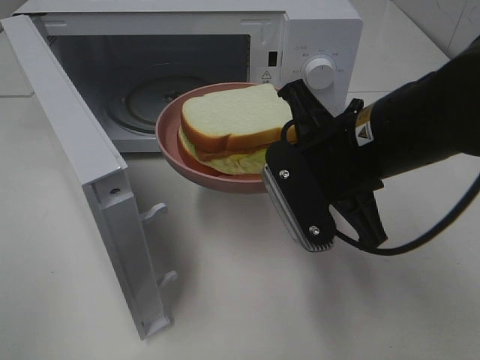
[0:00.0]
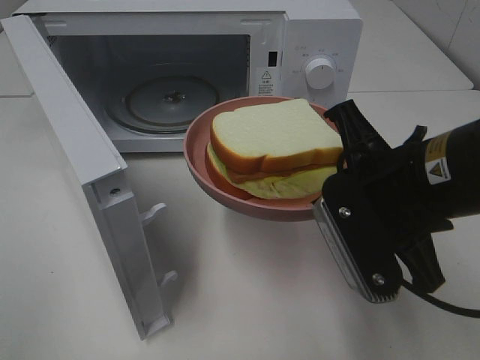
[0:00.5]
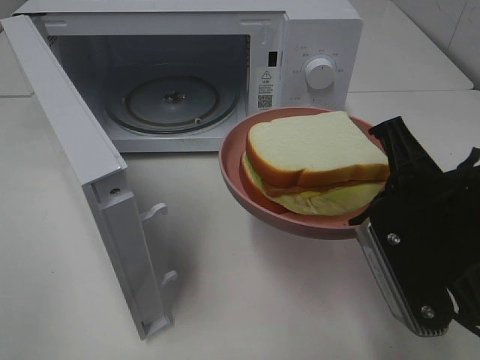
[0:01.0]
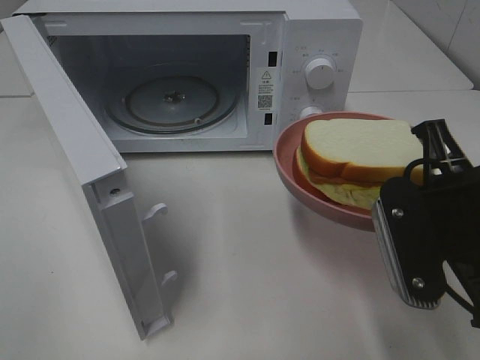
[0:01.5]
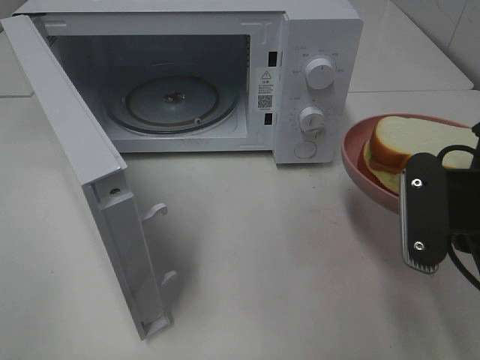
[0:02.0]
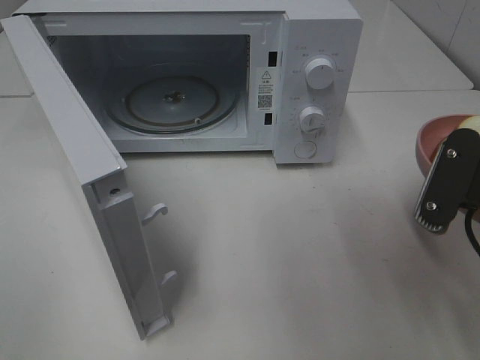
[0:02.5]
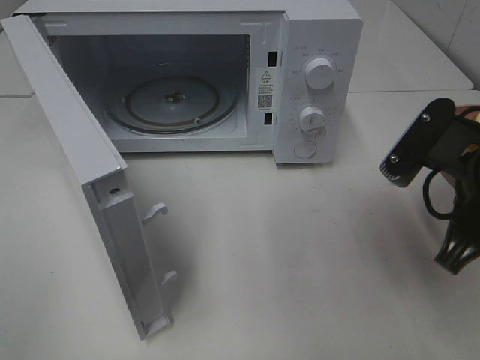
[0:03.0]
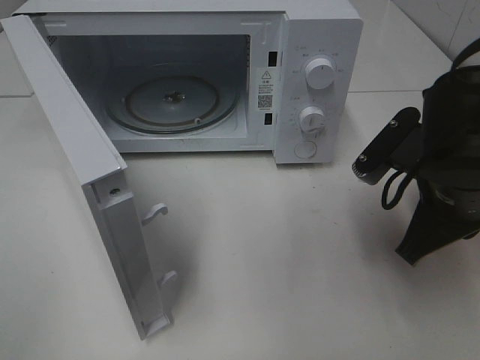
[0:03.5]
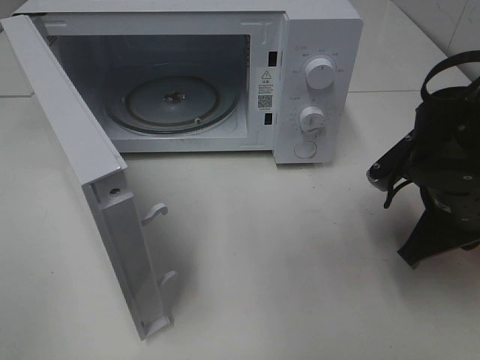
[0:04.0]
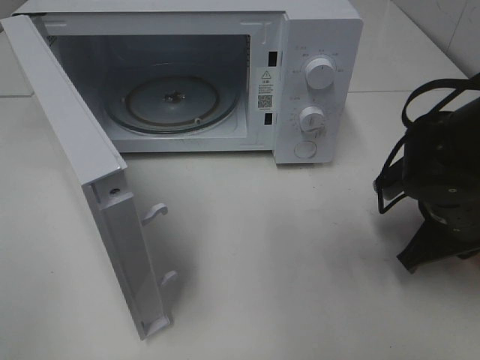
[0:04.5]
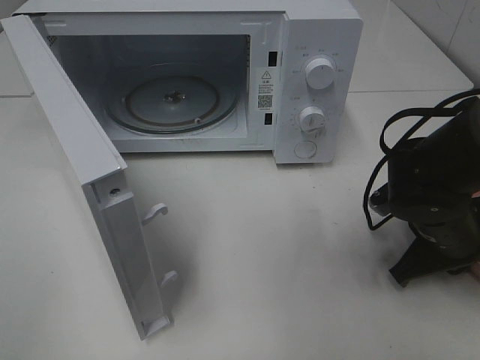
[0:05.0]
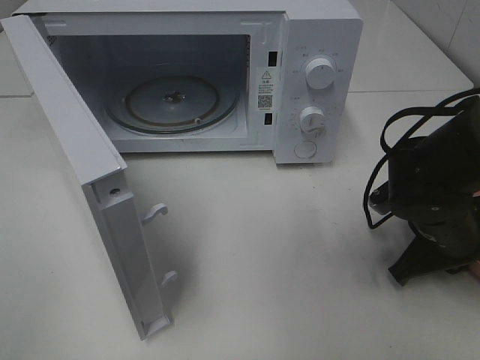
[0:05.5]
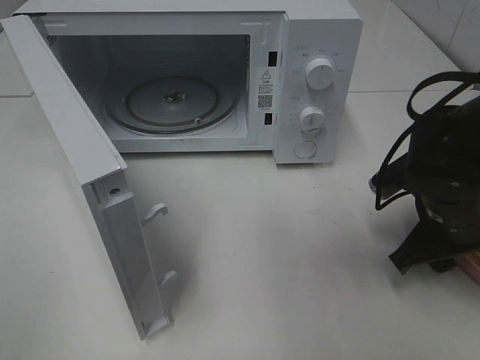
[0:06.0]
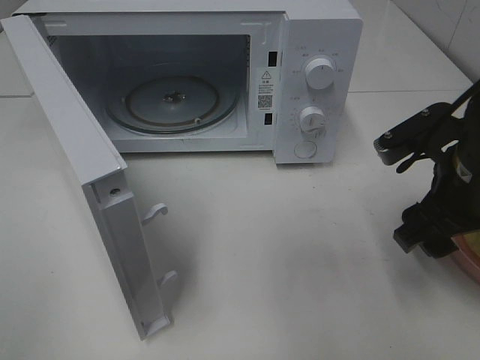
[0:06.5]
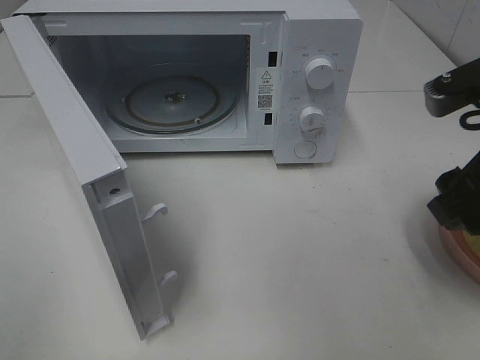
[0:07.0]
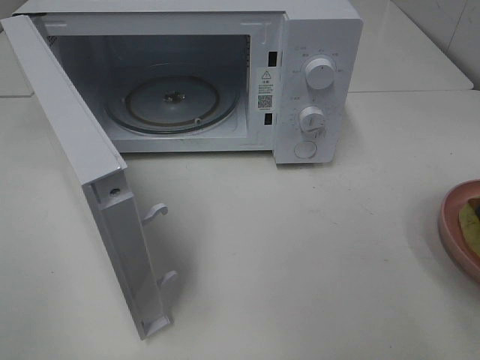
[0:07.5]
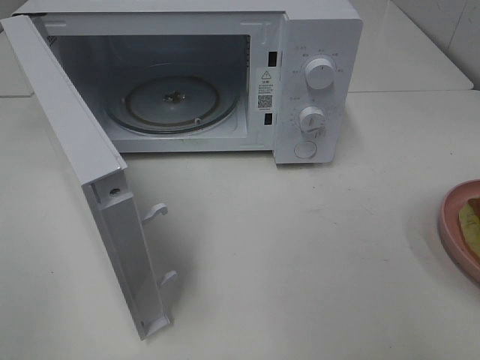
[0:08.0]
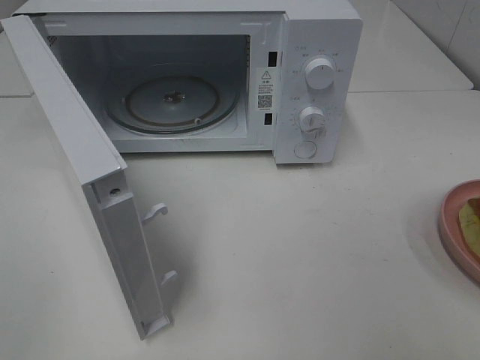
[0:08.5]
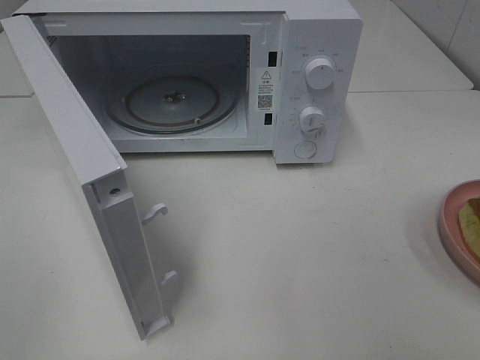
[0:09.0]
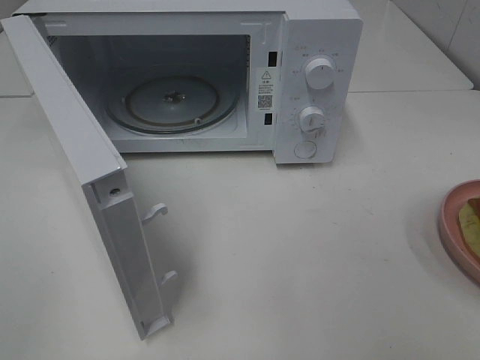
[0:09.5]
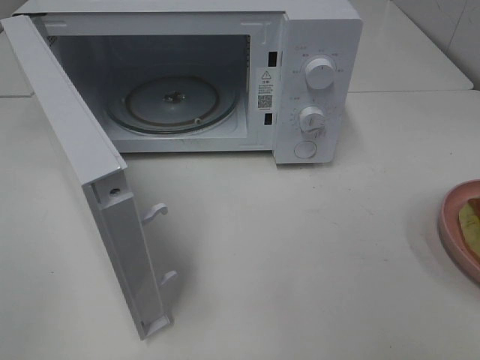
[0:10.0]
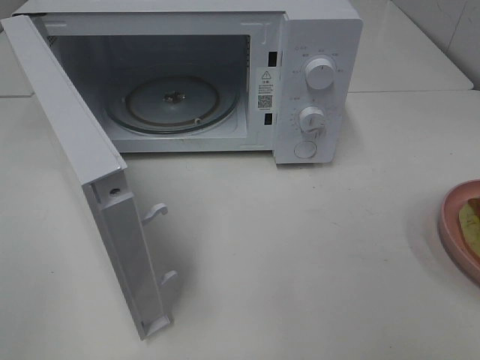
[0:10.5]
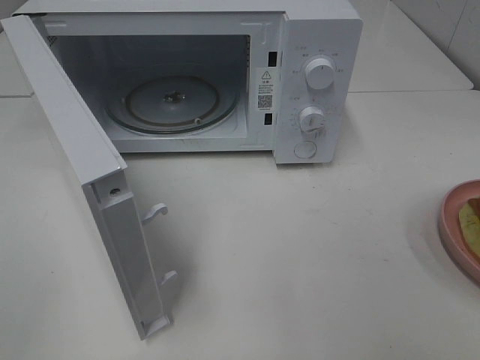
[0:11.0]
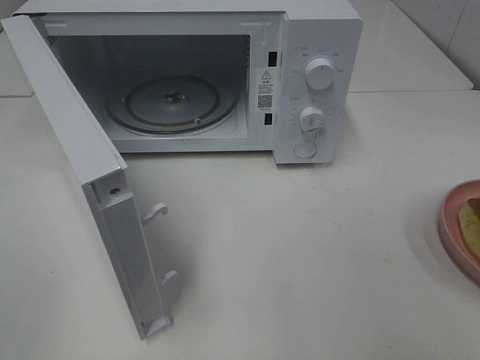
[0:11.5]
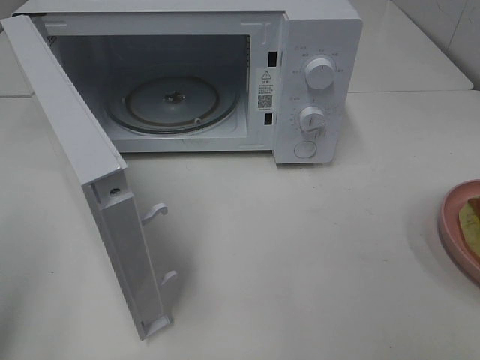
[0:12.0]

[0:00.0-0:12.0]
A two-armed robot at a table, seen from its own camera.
Task of the whole recording: Heat Sandwich.
Step, 0:00.0 to 0:06.5: Right hand: place the plate on the table.
0:00.0 to 0:02.0: The right gripper goes approximately 10 cm to the right and backward.
0:02.0 to 0:04.0: The right gripper moves forward and downward, roughly 10 cm.
0:04.0 to 0:06.0: The right gripper opens.
0:06.0 to 0:08.0: The right gripper shifts some 25 cm upward and backward.

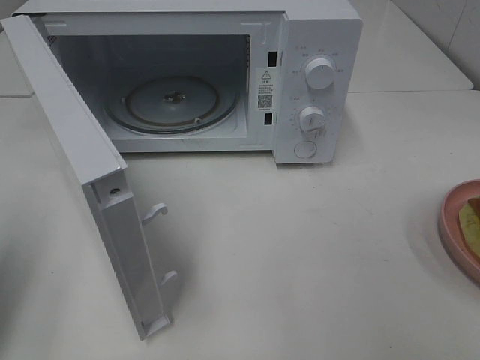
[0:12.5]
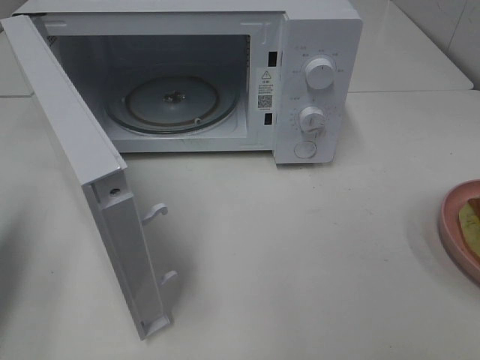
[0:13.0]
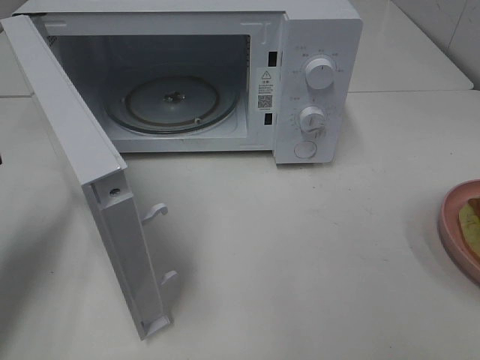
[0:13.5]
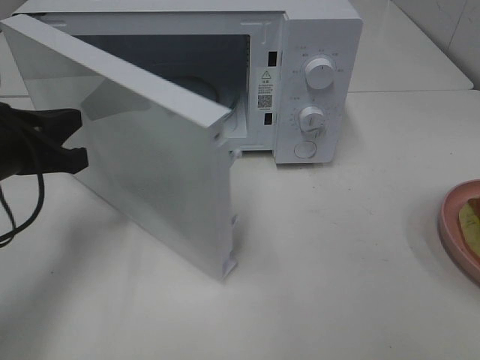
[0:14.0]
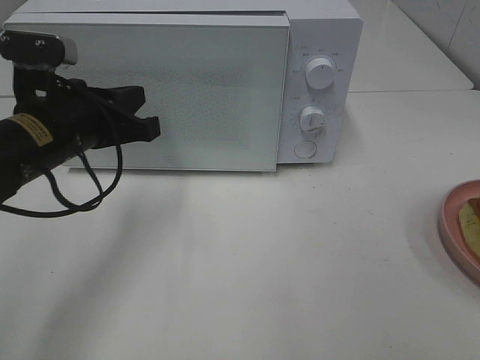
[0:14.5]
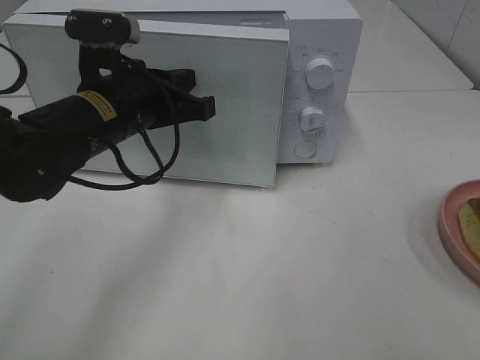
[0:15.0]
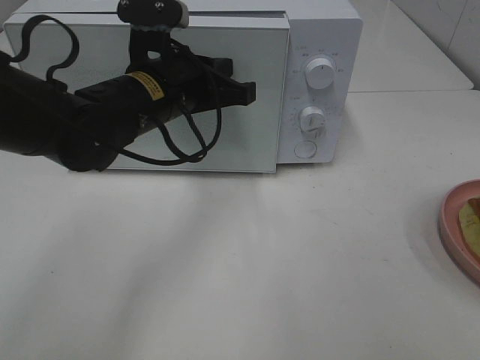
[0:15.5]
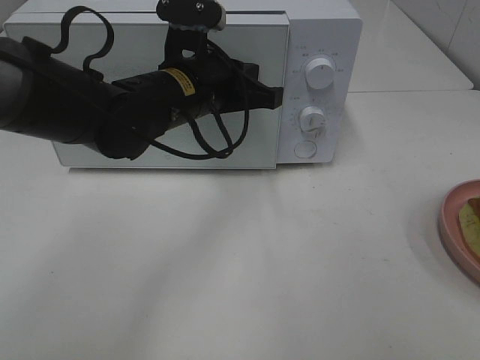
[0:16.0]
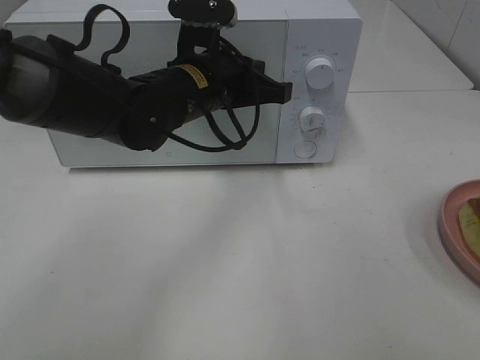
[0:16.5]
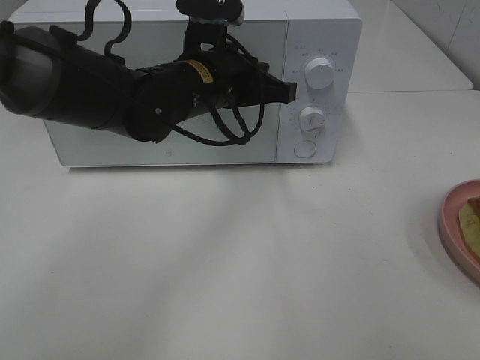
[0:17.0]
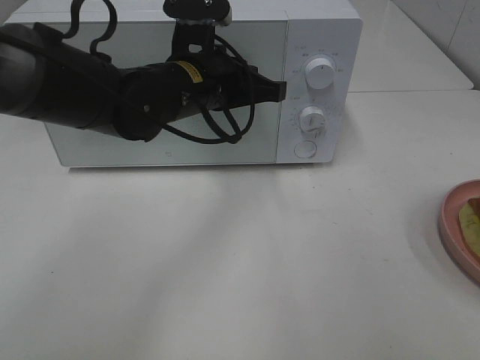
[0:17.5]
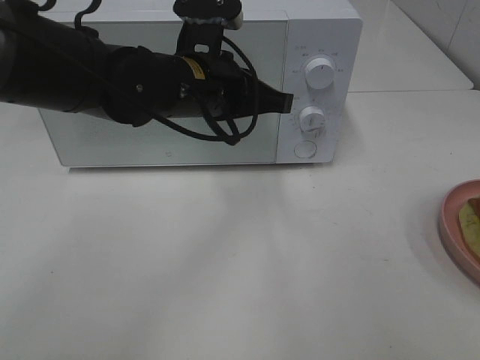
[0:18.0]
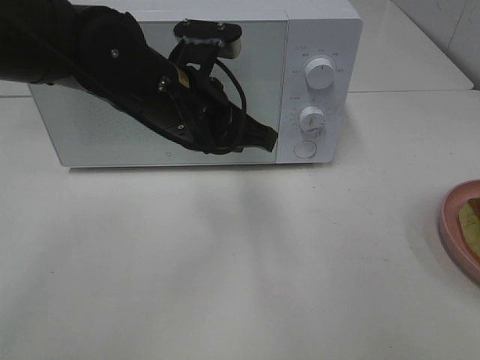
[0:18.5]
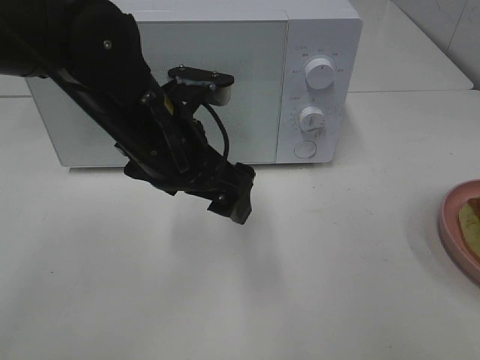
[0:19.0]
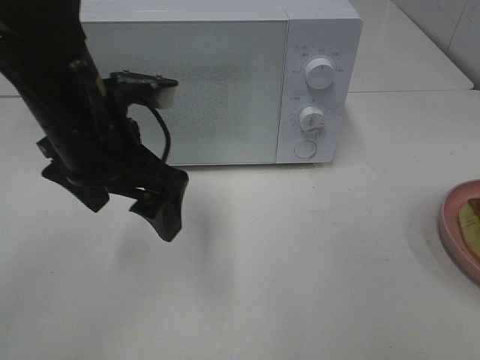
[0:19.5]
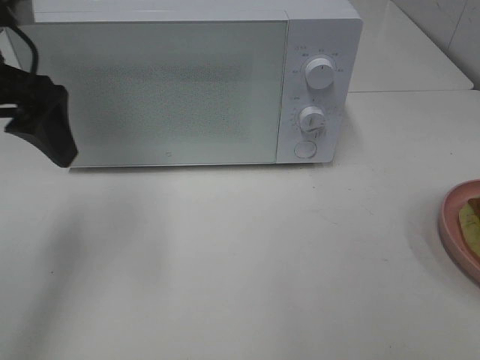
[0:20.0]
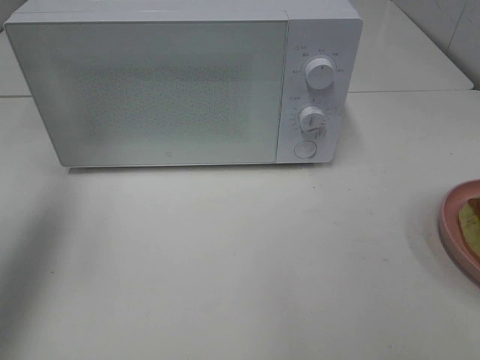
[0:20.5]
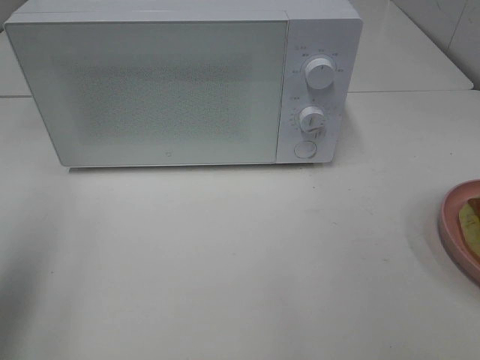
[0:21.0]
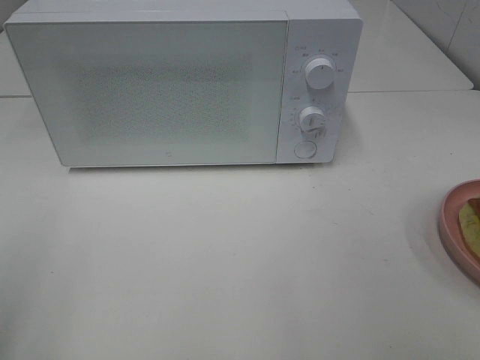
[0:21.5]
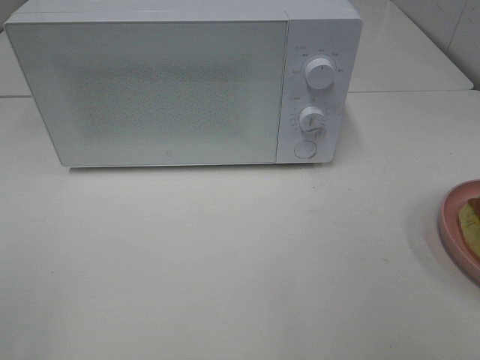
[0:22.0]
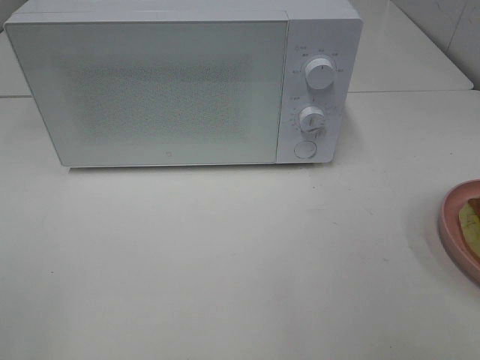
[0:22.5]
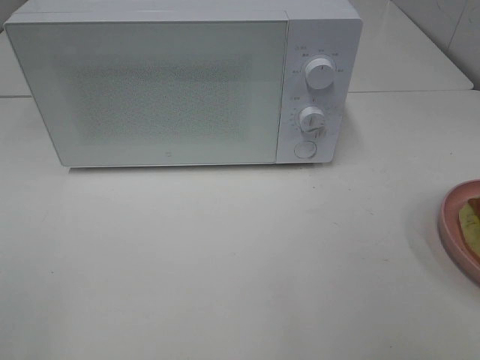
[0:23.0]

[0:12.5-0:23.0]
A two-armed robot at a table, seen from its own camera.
Task of the whole recording: Heat Sandwich.
Step, 0:12.5 to 0:18.0: Left hand: close the microwave door.
0:12.5 to 0:14.5: The left gripper is displaced to the right, forward and downward by about 25 cm.
0:14.5 to 0:16.5: The left gripper heads to the right and forward, covering about 15 cm.
0:16.5 to 0:19.0: The left gripper travels backward by roughly 10 cm, and opens its fingers.
0:19.0 to 0:21.0: The left gripper moves to the left, backward and upward, approximately 30 cm.
0:21.0 to 0:23.0: The left gripper travels backward by approximately 15 cm.

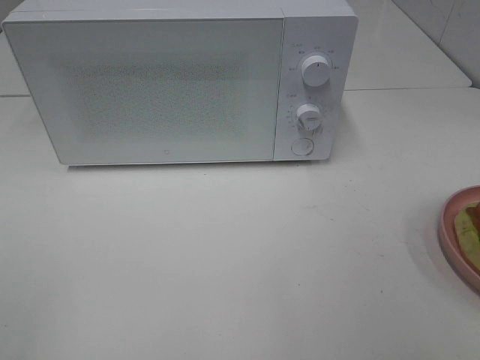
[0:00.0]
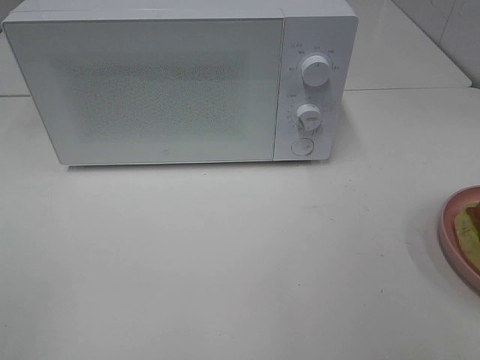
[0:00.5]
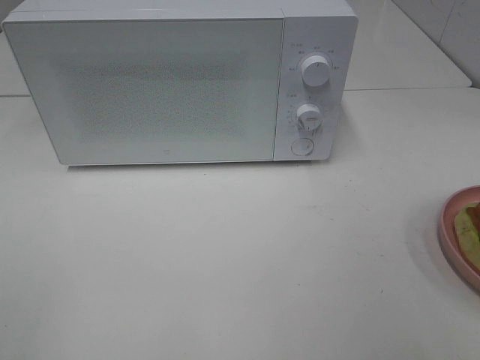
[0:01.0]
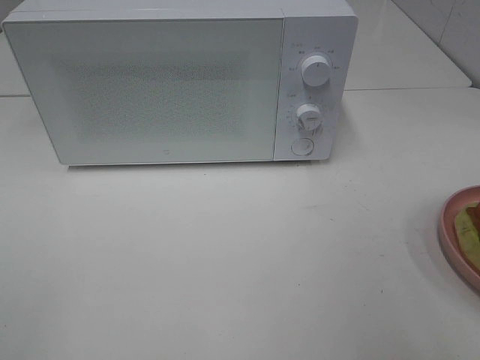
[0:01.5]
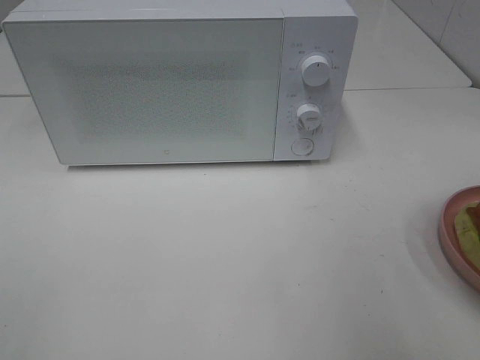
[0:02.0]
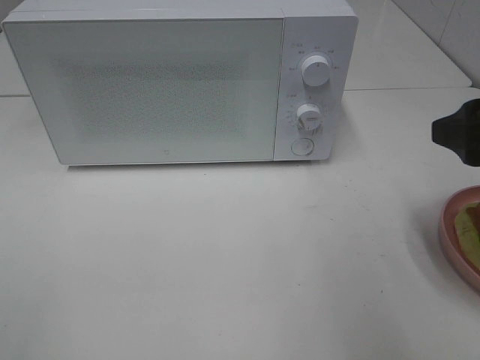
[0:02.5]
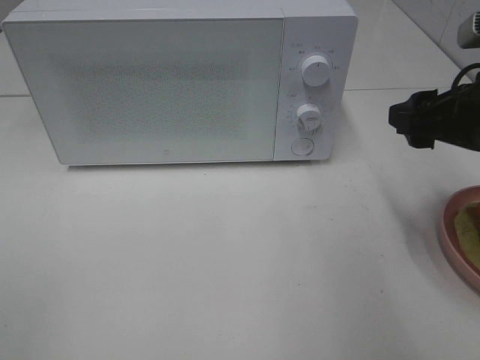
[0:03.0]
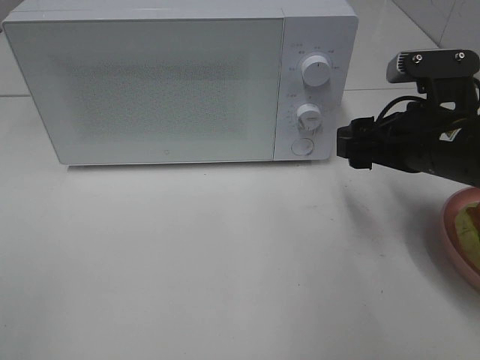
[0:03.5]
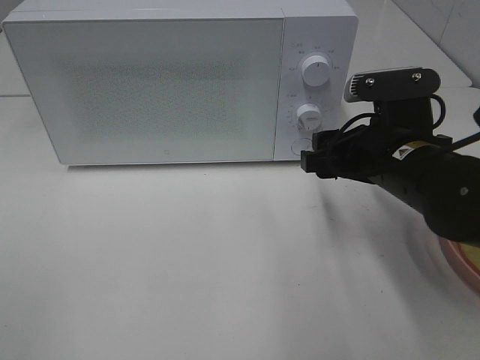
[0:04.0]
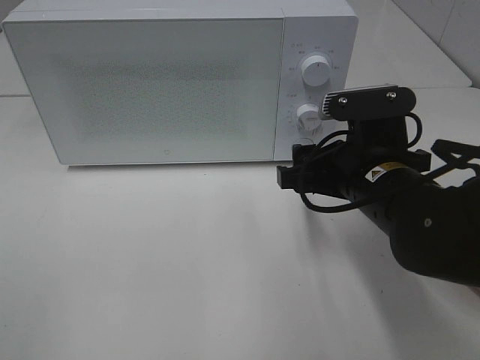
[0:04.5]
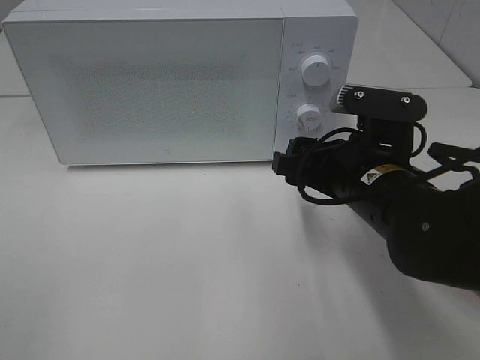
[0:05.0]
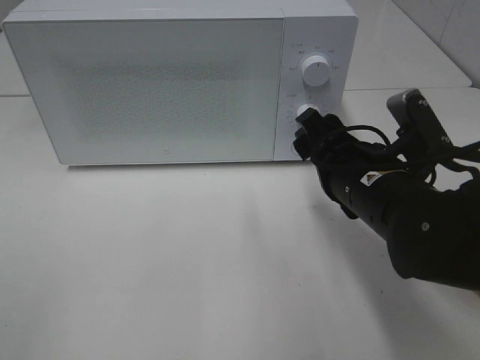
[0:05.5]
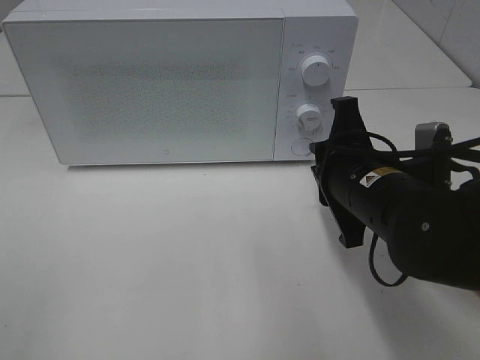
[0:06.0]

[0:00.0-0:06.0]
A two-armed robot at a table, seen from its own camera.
Task of the whole recording: Heat Sandwich.
0:02.0 to 0:04.0: The right gripper heads forward, downward and to the left, covering roughly 20 cm.
0:04.0 to 0:06.0: The right gripper closes its fingers.
